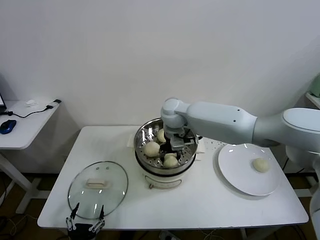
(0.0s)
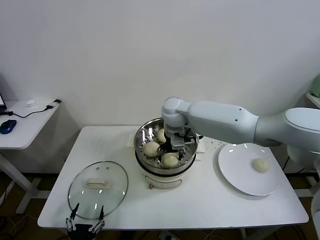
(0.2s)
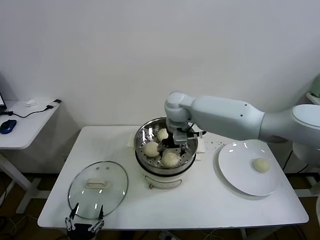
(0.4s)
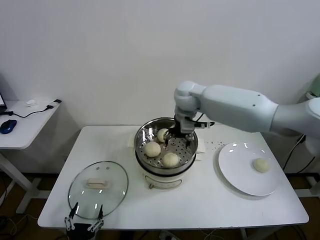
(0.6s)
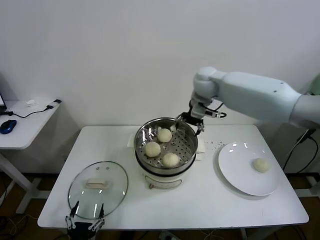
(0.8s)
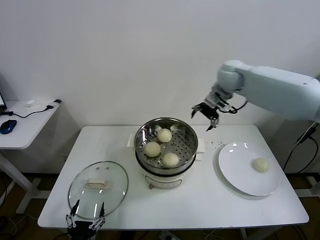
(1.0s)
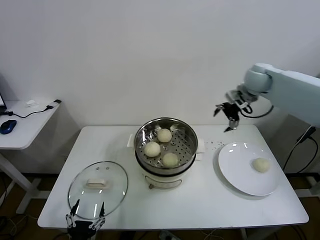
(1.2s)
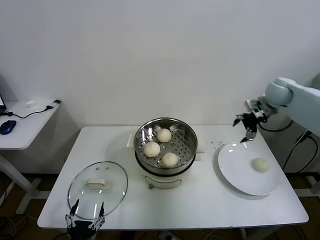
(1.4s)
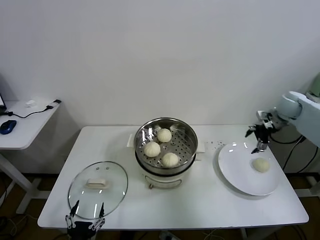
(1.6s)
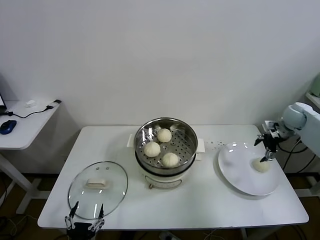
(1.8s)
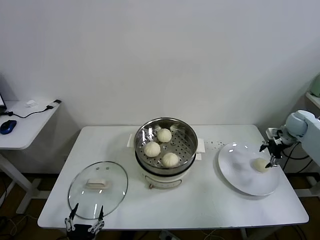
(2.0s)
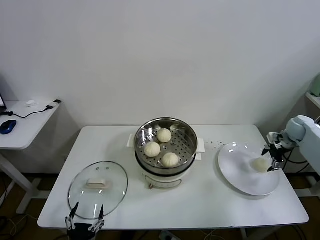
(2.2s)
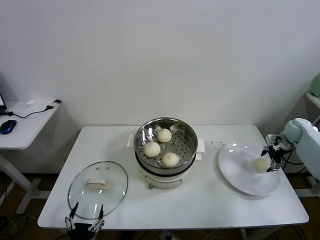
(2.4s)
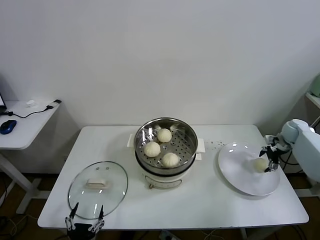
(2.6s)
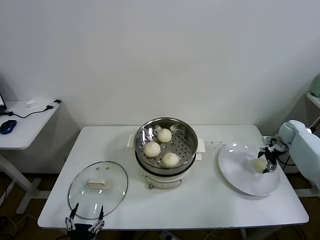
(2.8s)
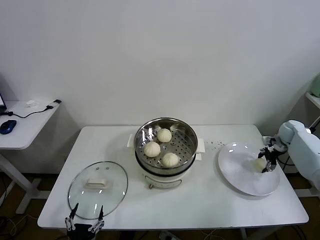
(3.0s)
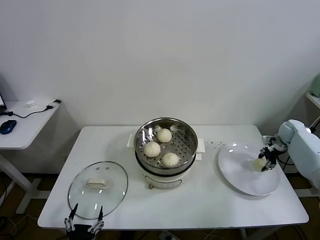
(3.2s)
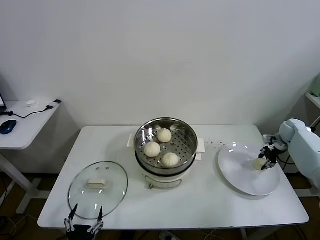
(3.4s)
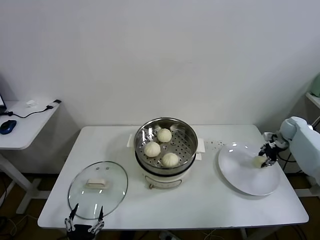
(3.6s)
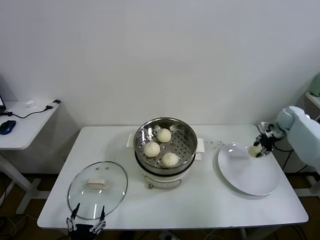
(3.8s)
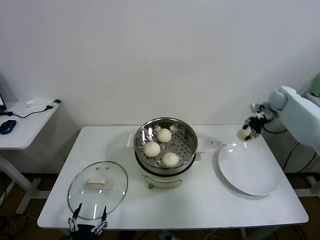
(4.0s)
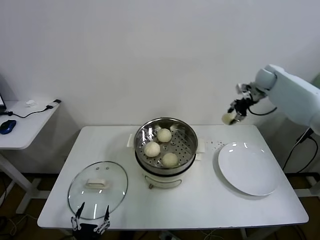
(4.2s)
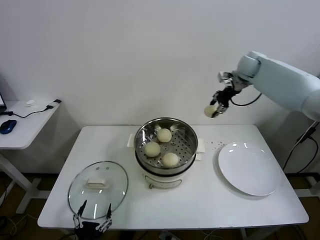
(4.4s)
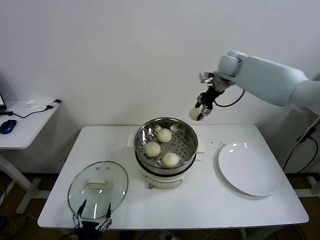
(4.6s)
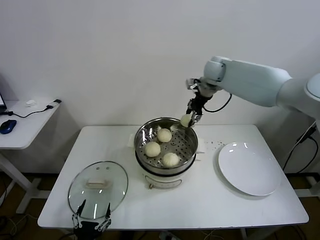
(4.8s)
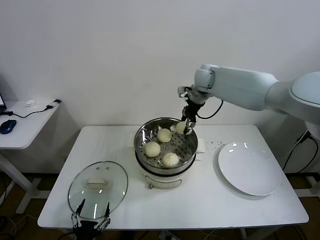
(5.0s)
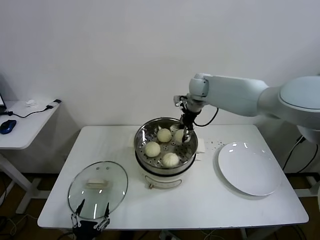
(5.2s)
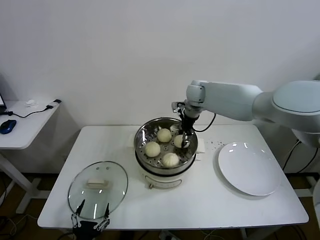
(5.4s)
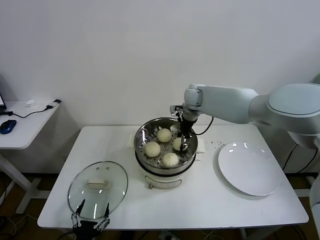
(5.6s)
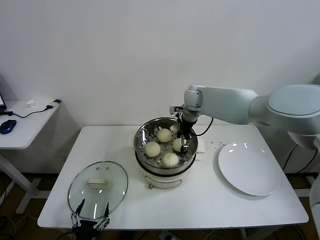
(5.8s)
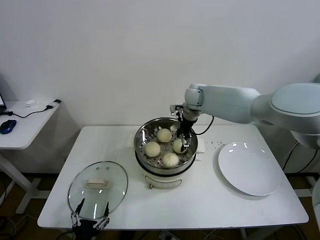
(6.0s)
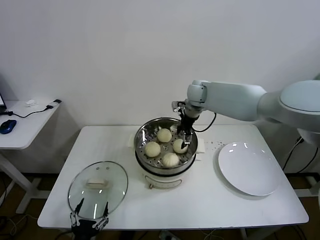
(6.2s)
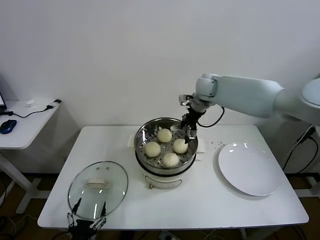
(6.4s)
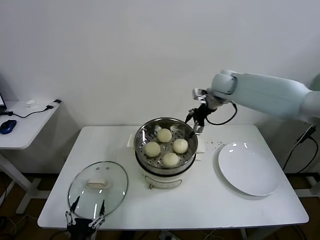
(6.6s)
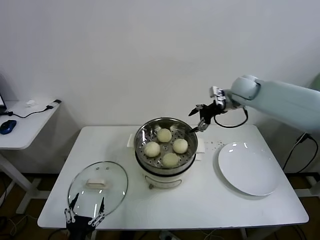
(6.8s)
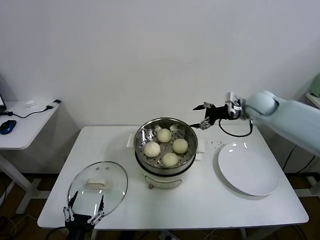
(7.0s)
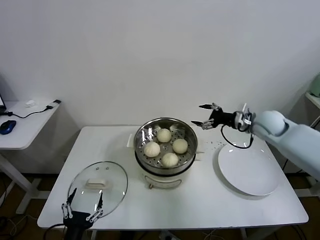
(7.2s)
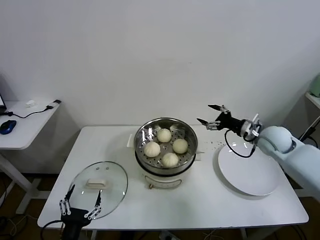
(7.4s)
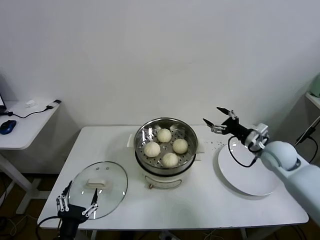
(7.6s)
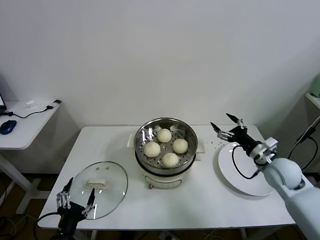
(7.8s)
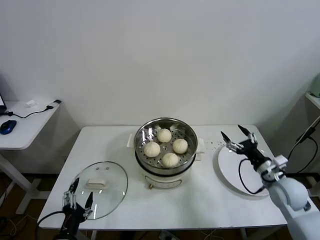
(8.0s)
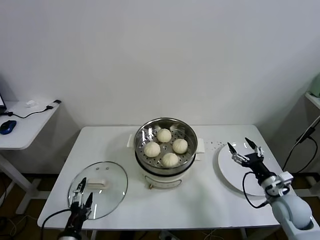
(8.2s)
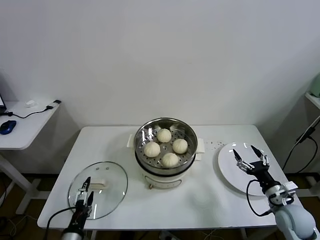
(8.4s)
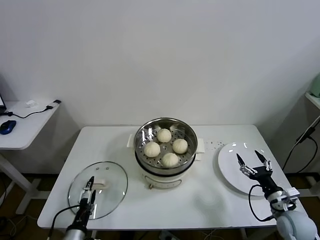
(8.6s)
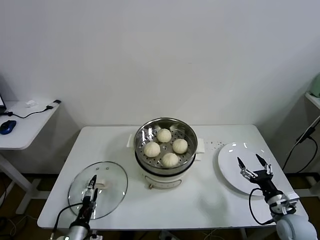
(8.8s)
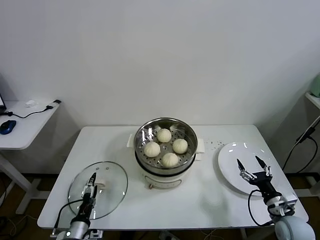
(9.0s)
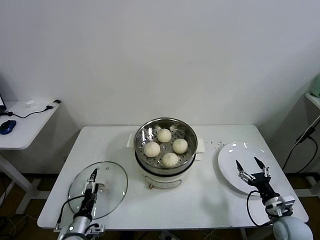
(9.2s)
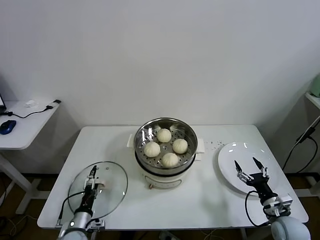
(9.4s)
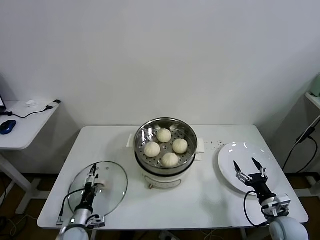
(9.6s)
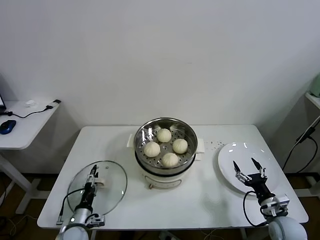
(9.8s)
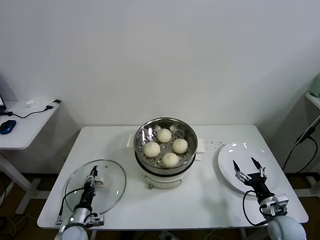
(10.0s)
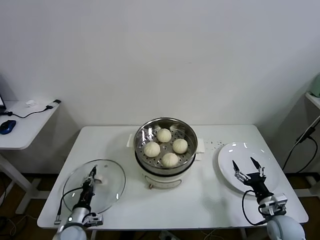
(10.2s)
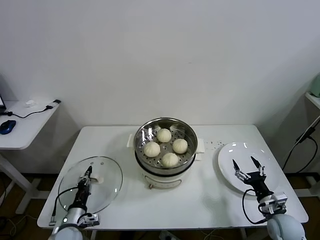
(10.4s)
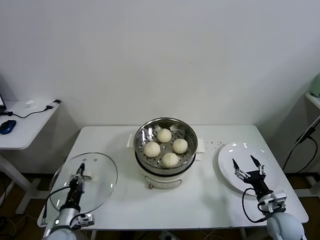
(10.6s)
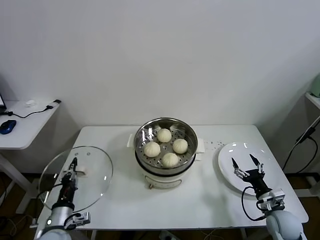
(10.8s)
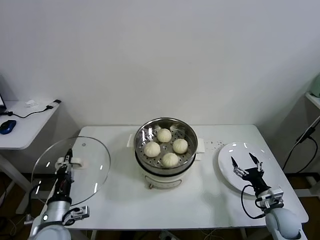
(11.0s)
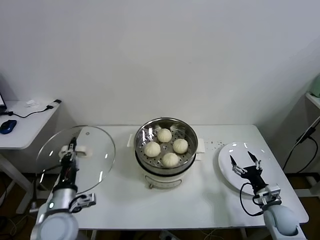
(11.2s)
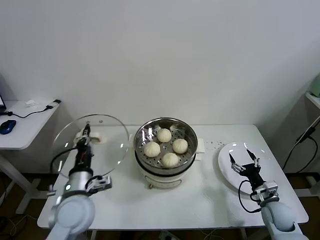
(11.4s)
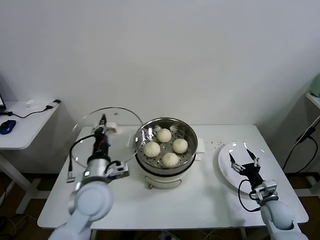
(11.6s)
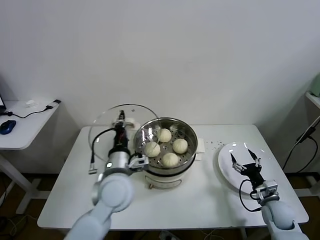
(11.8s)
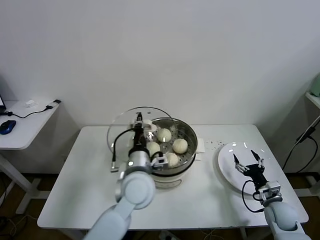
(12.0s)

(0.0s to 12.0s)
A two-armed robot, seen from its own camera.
Task of the whole recording: take steamed baozi put them in steamer.
Step, 0.4s - 3.2s: Grasp the baozi in the plate with right gripper.
Step, 3.4s - 6.0s: Place the baozi on the steamer with right gripper.
Step, 6.2s - 10.4s: Grasp the pot lid with left gripper.
0.0s - 1.6s: The right gripper shifts about 40 cm to the right, and opens up.
1.6s - 3.0s: The right gripper is displaced downward and to the right by some 15 cm, and closes up.
3.0s - 4.4s: The right gripper travels upward and to the left by about 35 cm, and closes.
4.4s - 6.0s: The right gripper travels to the left and downward by some 20 cm, and opens.
6.0s - 7.6s: The left gripper goes some 5 cm upward; the right gripper heads to the right, backward and downward, covering some 35 cm.
7.6s - 9.0s: The right gripper travels backward and downward by some 25 cm. Meanwhile the left gripper goes some 15 cm downward and forward.
9.0s - 10.4s: The left gripper shifts about 5 cm forward, and closes up.
10.4s - 12.0s: The left gripper goes approximately 35 cm upward and to the right.

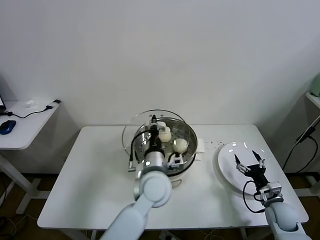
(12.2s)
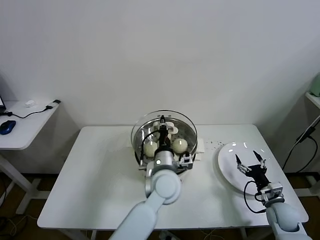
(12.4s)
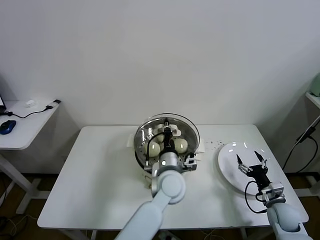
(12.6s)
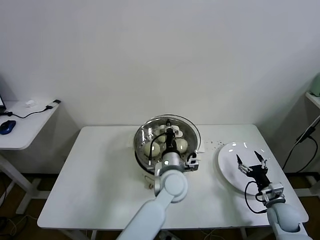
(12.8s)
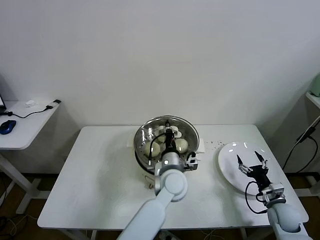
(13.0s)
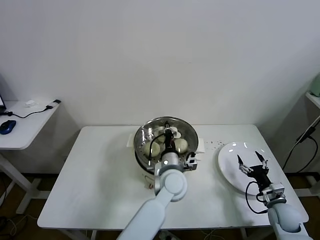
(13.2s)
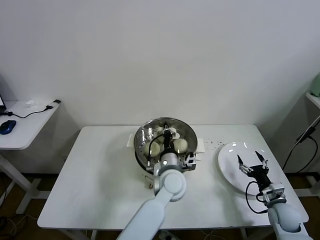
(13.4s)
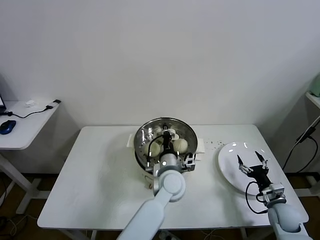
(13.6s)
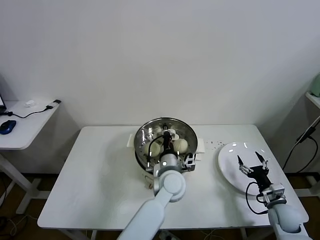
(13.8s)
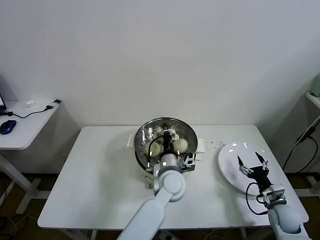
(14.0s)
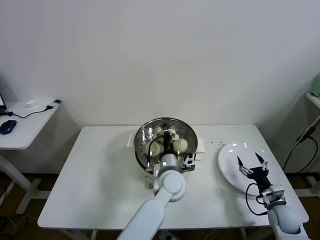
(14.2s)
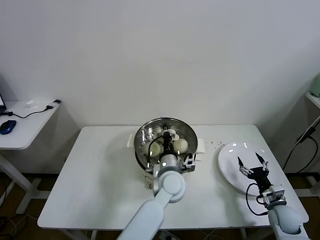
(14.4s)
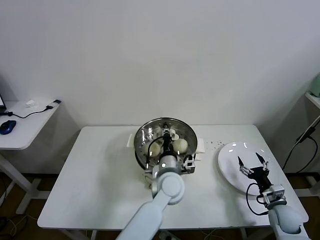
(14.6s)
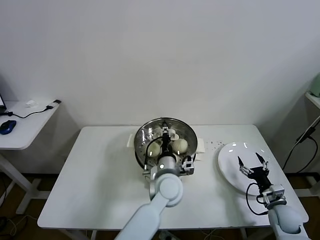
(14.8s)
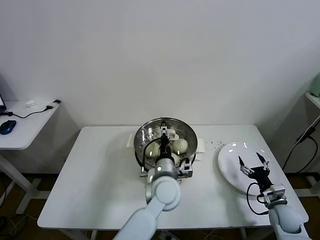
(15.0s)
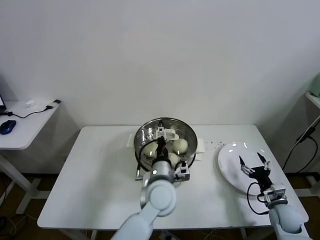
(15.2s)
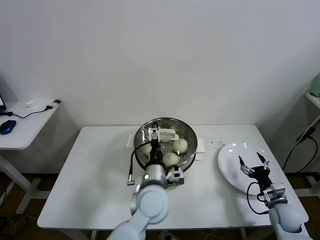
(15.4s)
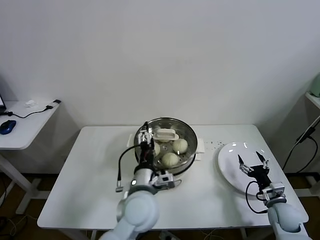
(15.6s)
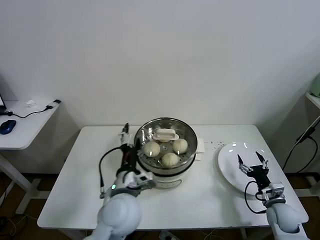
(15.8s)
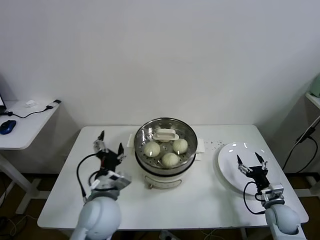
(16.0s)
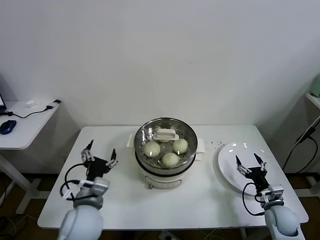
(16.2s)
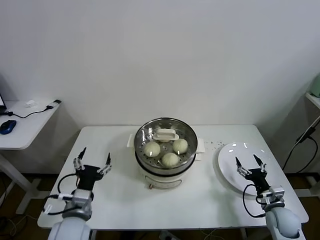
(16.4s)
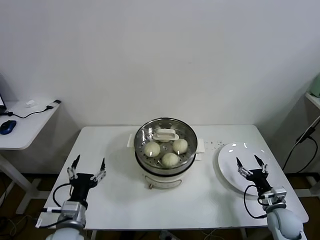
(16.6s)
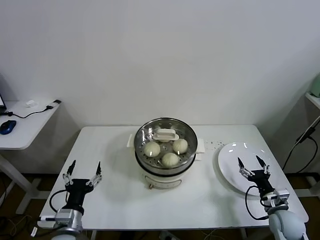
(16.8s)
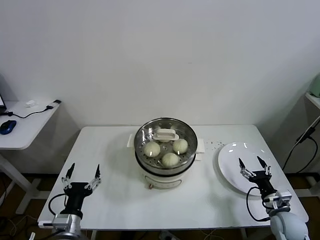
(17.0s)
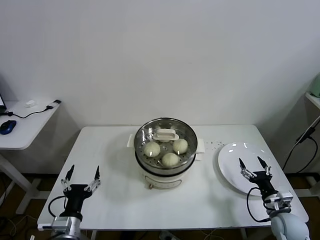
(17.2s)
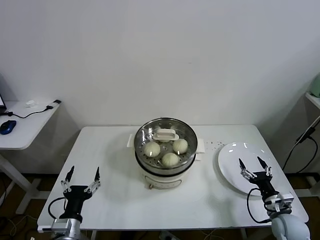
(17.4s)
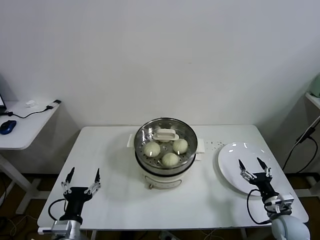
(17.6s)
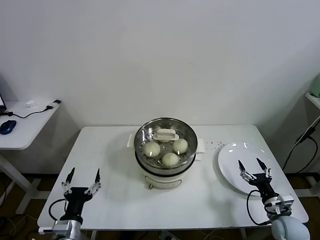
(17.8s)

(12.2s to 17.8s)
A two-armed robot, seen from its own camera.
Task of the whole recording: take steamed baozi put them in steamer.
Step, 12.2s - 15.2s: Place the pot lid on the steamer with left gripper.
12.2s - 13.6s: The left gripper moves to the right and downward, some 10 cm.
13.6s - 15.0s: The left gripper opens its fingers.
15.0s - 16.4s: The left gripper moves to the left and backward, roughly 25 cm.
16.4s - 17.8s: The left gripper heads downward and backward, covering about 10 cm.

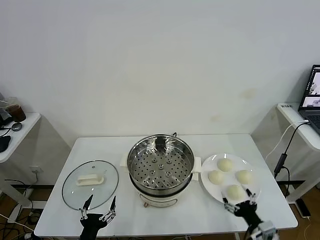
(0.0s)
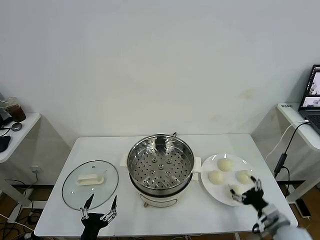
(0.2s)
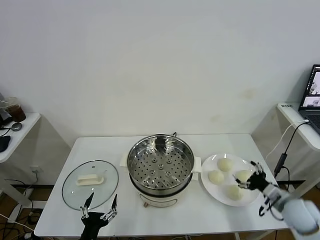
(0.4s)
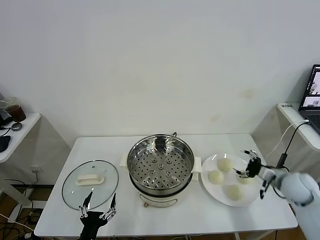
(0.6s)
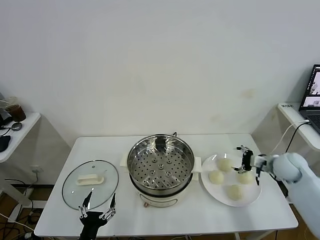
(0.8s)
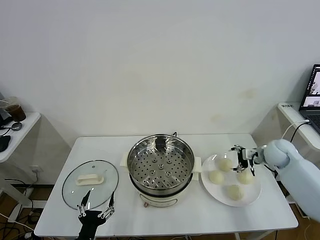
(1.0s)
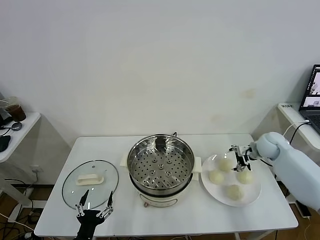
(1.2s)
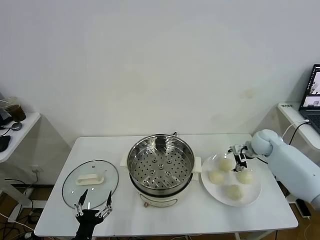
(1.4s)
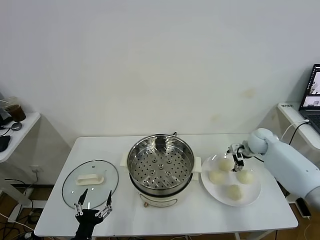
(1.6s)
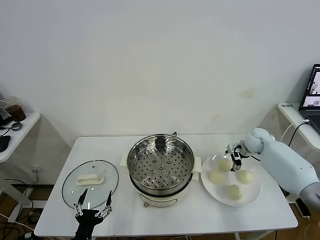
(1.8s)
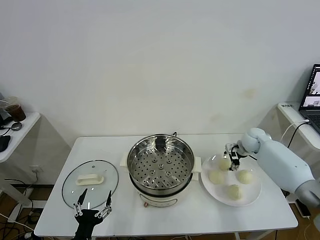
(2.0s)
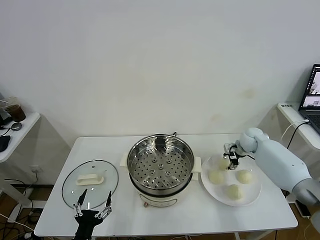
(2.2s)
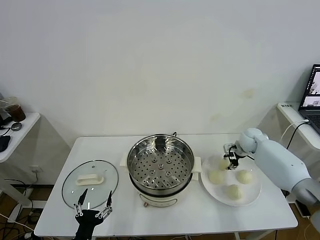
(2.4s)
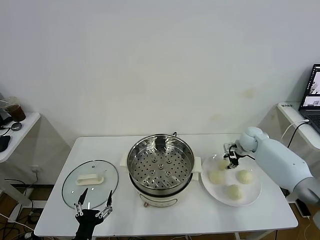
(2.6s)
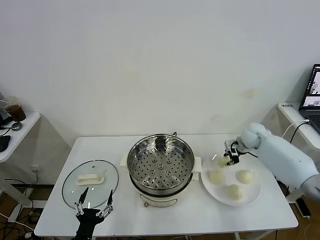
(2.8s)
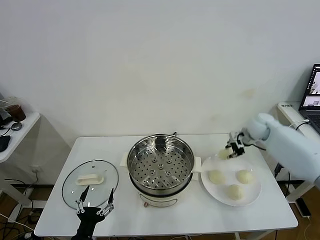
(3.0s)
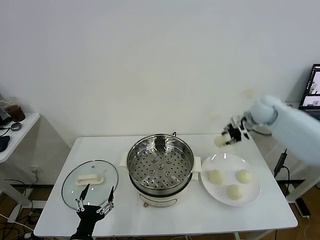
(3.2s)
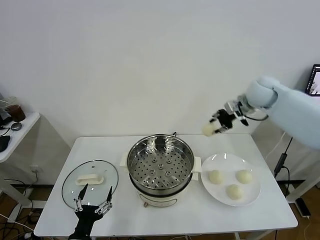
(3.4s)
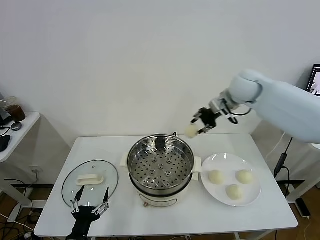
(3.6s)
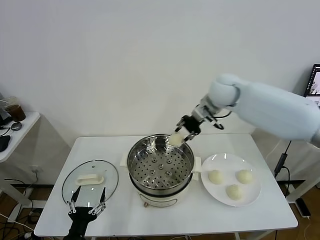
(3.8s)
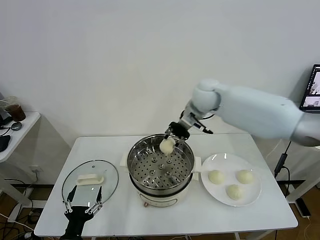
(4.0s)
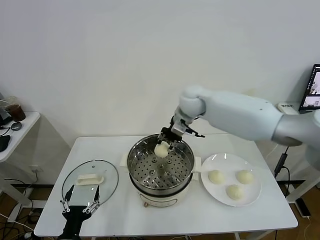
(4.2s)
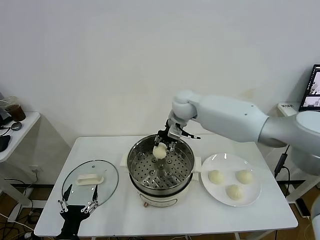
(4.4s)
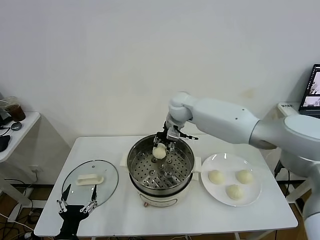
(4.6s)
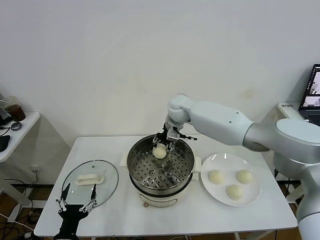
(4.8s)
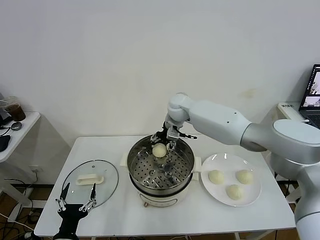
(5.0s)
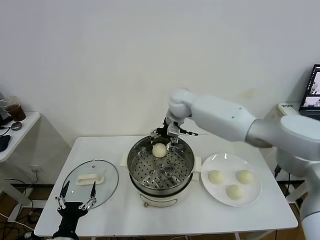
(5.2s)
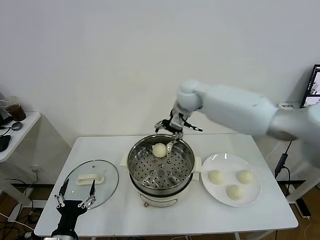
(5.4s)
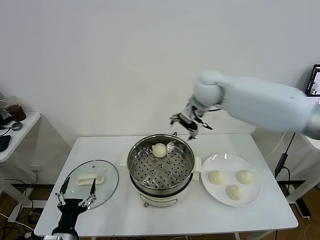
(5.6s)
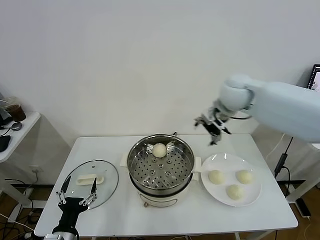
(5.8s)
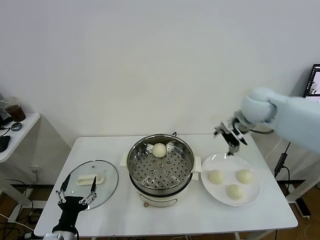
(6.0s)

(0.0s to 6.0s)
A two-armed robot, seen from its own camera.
Task of the whole recording: take steamed baozi put them in steamer.
Step, 0.0s - 2.4s: Grasp the baozi in the plate with right gripper.
Step, 2.6s - 5.0s: Place the baozi on the steamer with right gripper.
1.6s - 3.0s: The right gripper travels upward by about 10 cm, and closes up.
3.0s - 4.4s: The right gripper moves to the left, some 30 cm.
4.4s - 6.0s: The right gripper travels to the right by about 25 cm, and opens.
